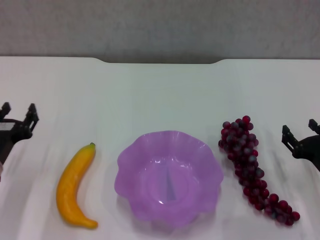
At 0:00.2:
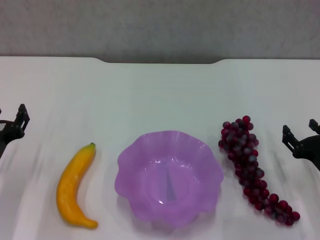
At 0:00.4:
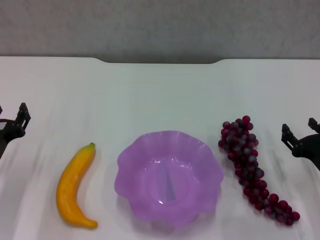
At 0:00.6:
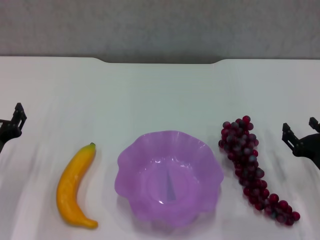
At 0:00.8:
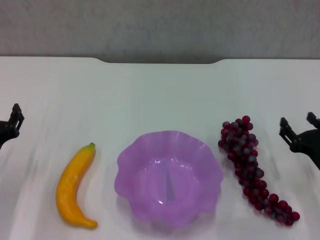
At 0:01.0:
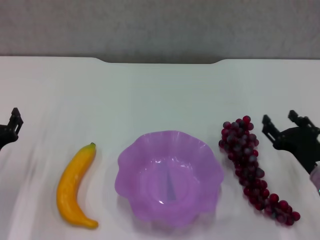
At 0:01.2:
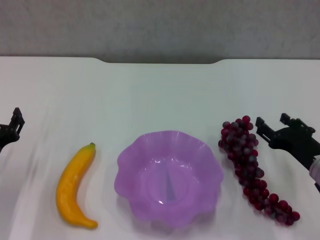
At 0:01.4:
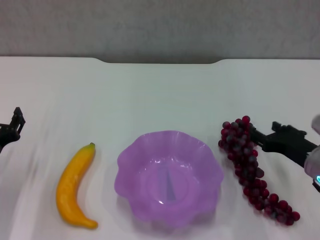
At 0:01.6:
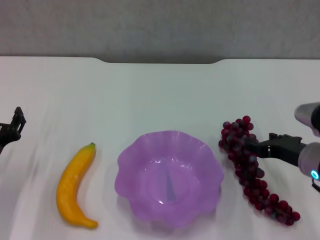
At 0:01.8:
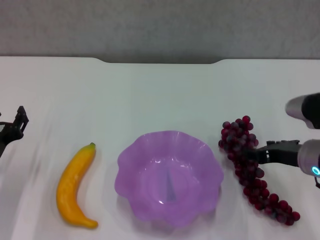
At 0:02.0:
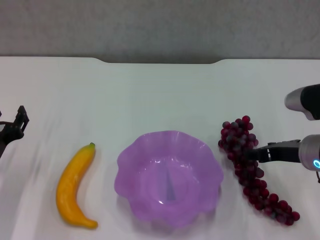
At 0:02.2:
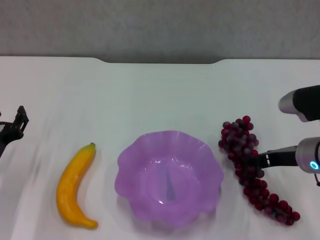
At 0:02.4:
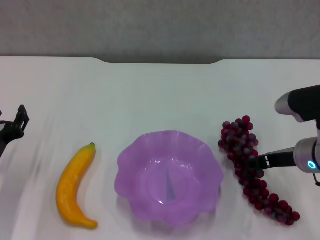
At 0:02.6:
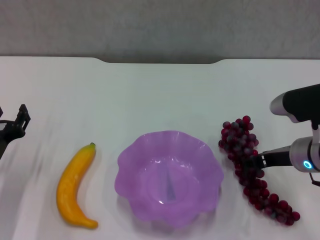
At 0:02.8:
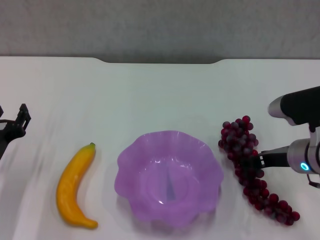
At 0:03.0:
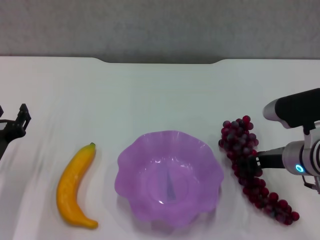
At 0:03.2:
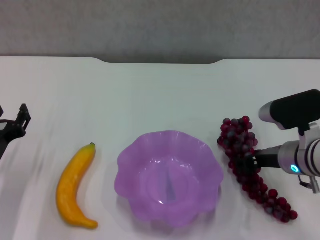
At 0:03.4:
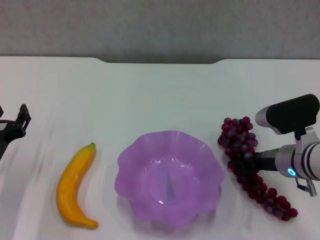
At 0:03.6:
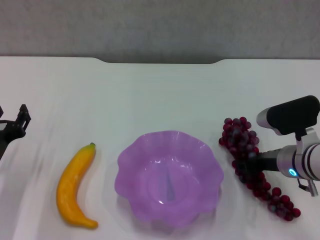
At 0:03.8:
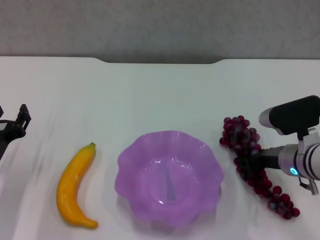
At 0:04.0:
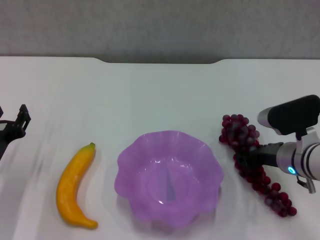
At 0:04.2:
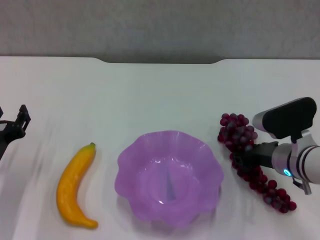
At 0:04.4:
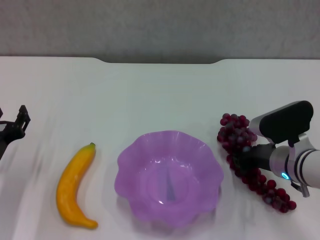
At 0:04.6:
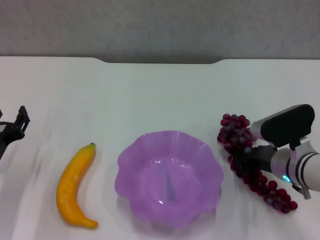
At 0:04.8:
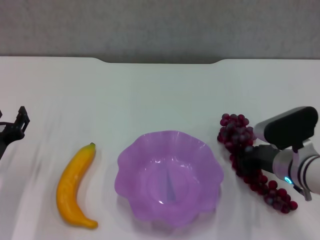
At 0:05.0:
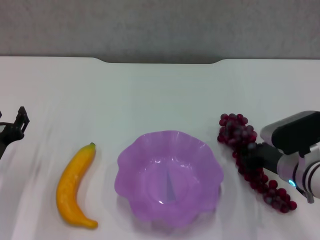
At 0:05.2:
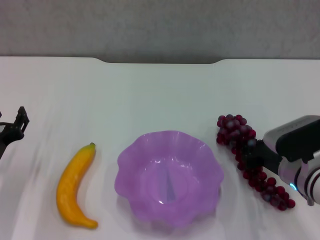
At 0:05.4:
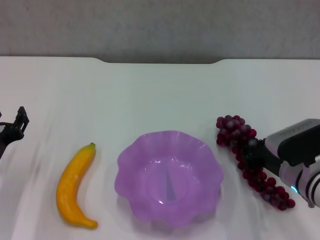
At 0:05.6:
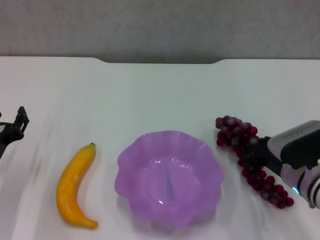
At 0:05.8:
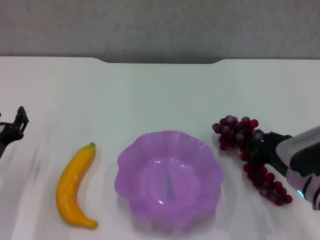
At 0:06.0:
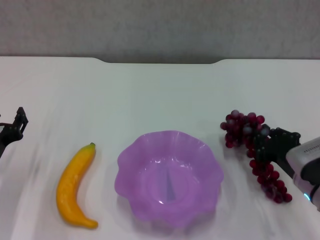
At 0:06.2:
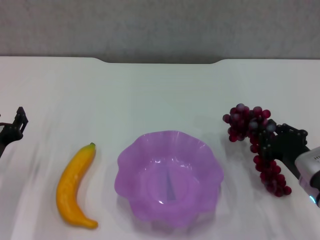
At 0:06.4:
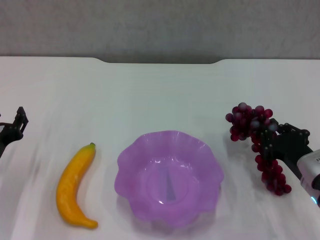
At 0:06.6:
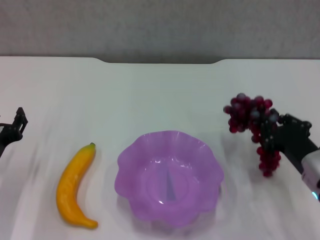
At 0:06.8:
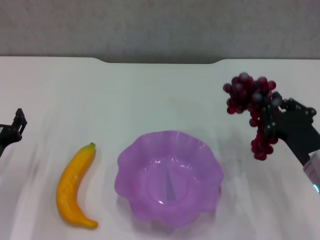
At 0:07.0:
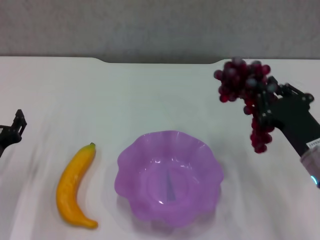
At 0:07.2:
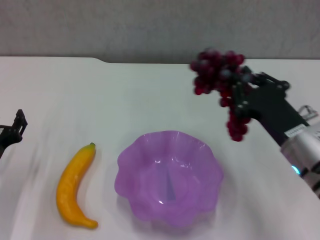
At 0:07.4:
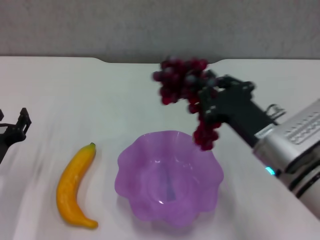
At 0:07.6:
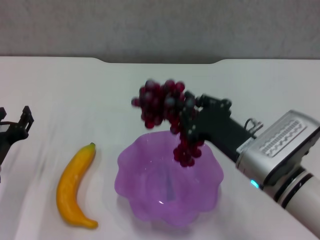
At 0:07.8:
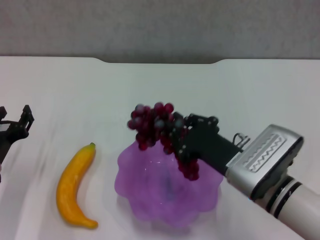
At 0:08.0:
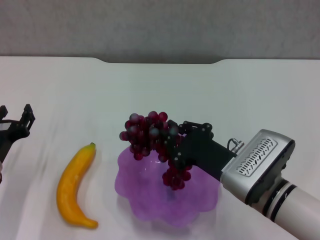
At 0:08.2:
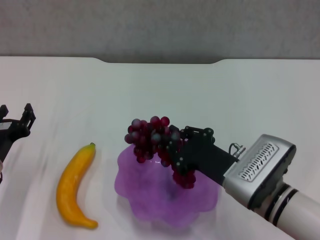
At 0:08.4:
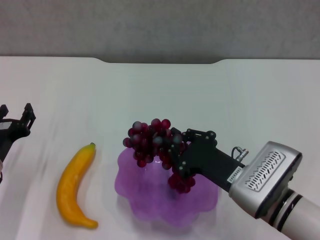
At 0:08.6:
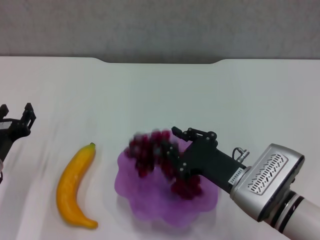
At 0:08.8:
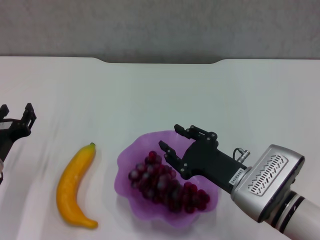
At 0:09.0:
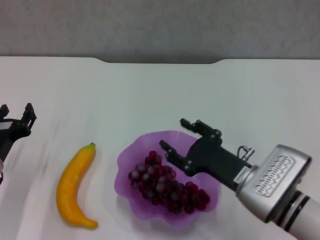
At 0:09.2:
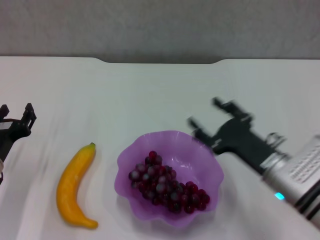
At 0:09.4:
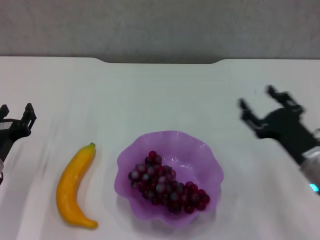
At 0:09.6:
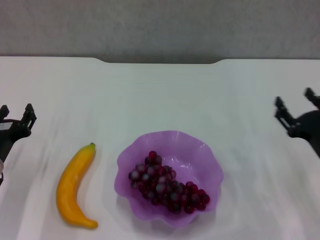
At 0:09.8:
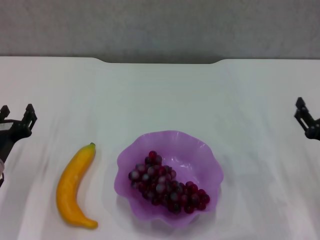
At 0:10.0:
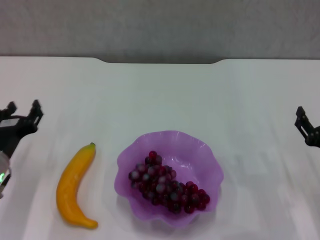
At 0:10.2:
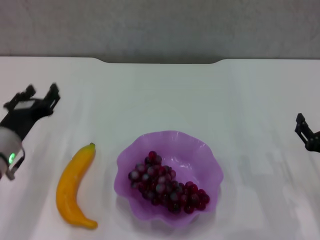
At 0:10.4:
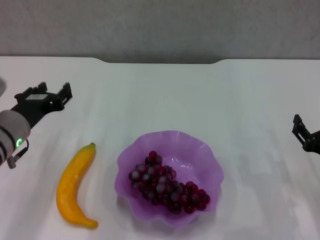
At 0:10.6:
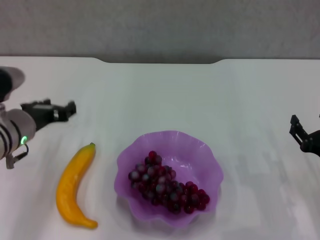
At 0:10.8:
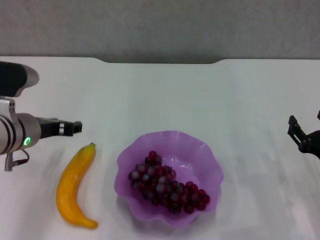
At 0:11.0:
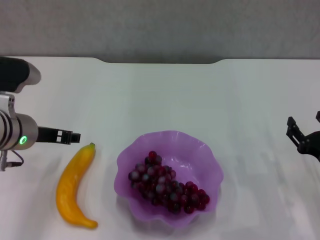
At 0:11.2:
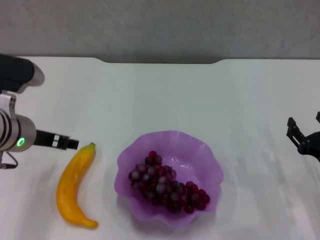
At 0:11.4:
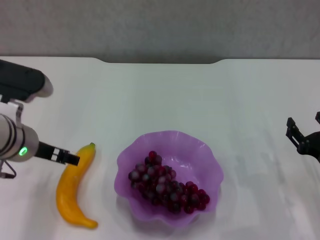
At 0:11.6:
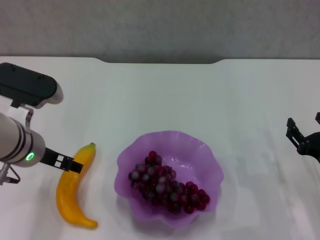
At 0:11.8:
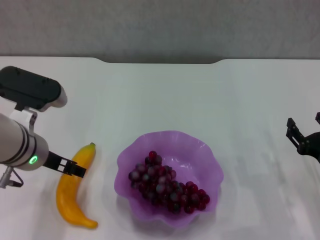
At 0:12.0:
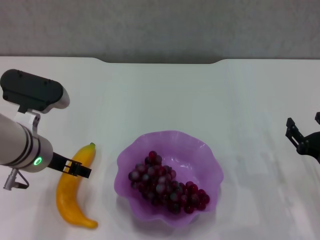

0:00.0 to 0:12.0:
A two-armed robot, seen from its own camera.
Step, 0:00.0 to 0:03.8: Grasp the grape with right gripper.
Step, 0:04.2 to 0:09.0: Place the grape in the purple plate with right gripper.
0:00.0 to 0:01.6: The right gripper goes some 10 cm upward and to the left.
0:01.6 to 0:04.4: The grippers stay close to where they were, moving slightly.
0:04.4 to 0:06.0: The right gripper shifts by roughly 5 cm, and closes.
0:06.0 to 0:07.6: The right gripper heads to the left and upward, covering approximately 10 cm.
0:07.6 to 0:09.0: The right gripper opens.
0:09.0 to 0:10.4: The right gripper is displaced to the right by roughly 15 cm, and opens up. The left gripper goes roughly 5 cm upward.
0:10.4 to 0:12.0: The left gripper ends up roughly 5 cm from where it was, and opens its fingers.

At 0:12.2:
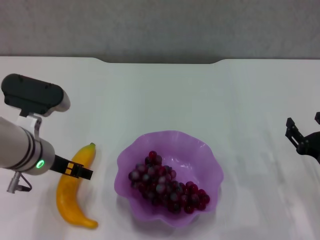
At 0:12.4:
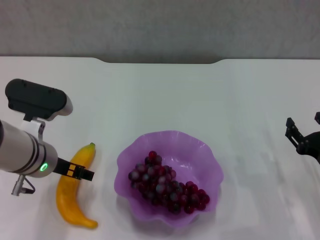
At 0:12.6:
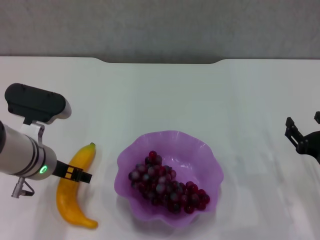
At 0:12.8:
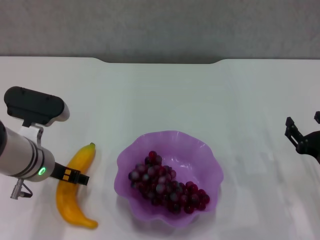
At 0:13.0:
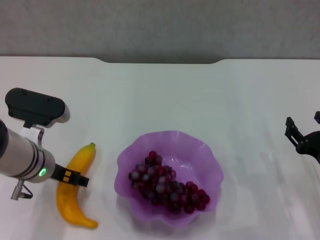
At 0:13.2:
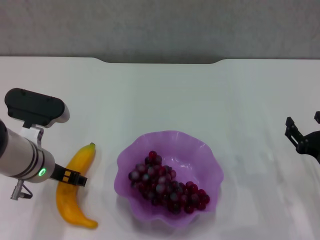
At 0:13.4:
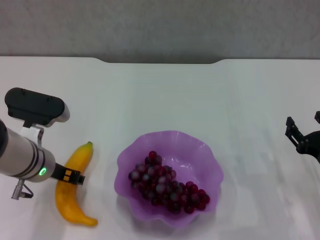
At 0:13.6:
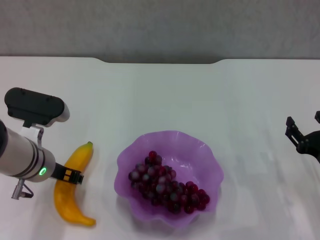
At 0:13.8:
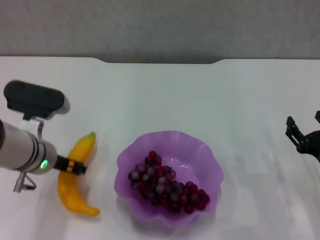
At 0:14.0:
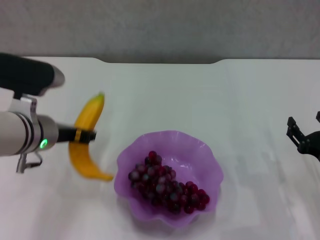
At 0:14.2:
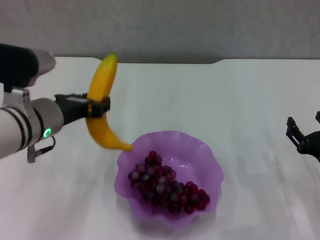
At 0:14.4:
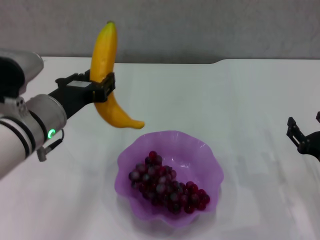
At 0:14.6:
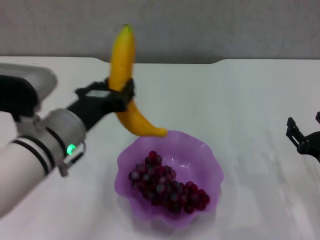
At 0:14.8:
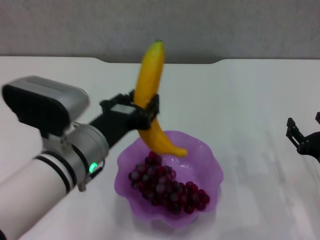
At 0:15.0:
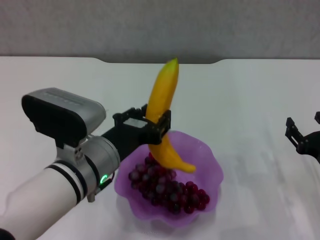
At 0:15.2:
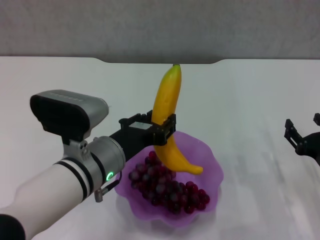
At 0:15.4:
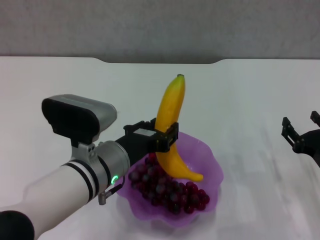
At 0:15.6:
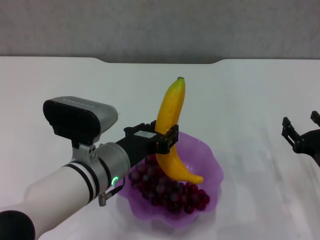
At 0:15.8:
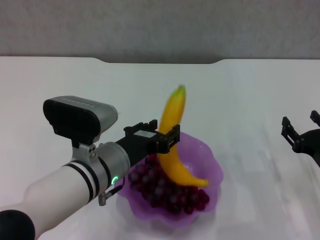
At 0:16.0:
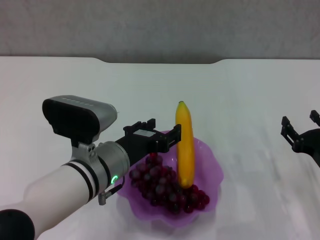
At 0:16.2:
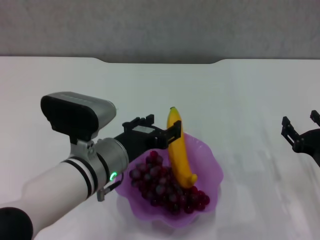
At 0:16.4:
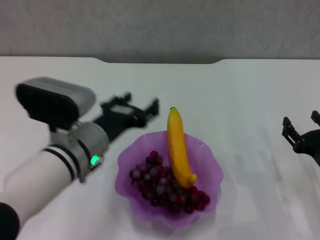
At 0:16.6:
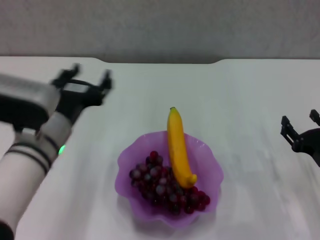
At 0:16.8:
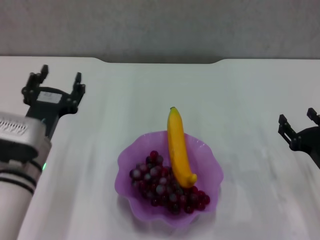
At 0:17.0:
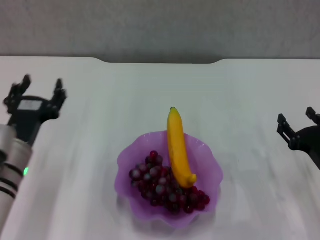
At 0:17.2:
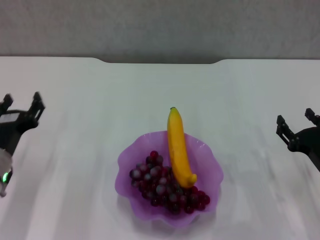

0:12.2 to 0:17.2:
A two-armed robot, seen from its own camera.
Step, 0:13.8 to 0:16.2: Place the banana in the purple plate with left gripper.
0:12.2 to 0:13.8: The left gripper closes.
0:13.8 to 0:15.6: The left gripper shifts about 10 cm to the right and backward.
0:15.6 to 0:17.2: The left gripper is displaced to the left by roughly 15 cm, and opens its fingers.
